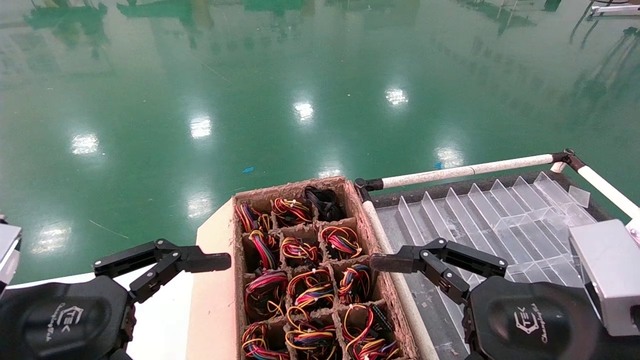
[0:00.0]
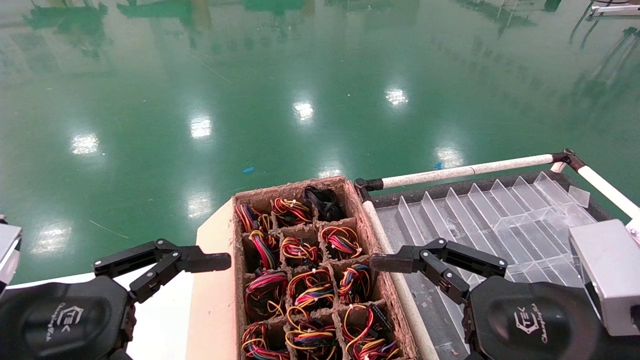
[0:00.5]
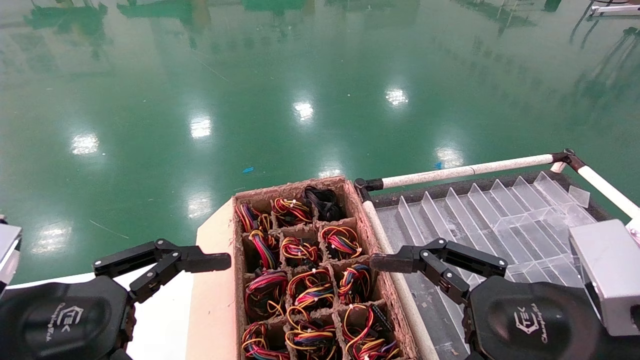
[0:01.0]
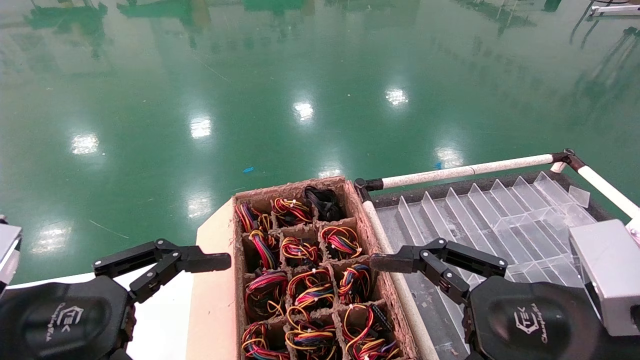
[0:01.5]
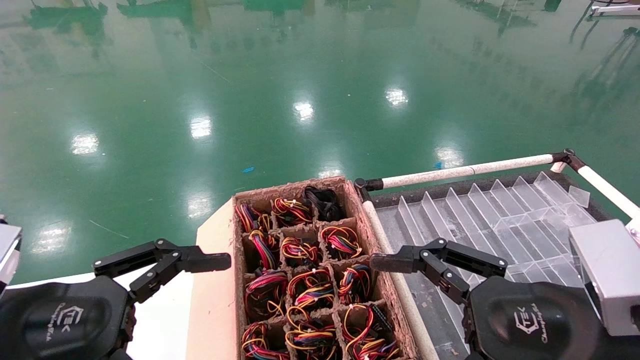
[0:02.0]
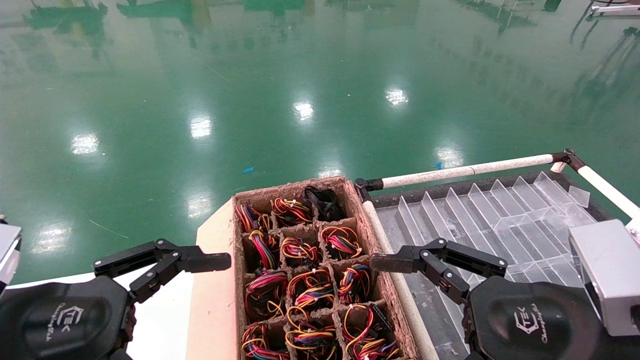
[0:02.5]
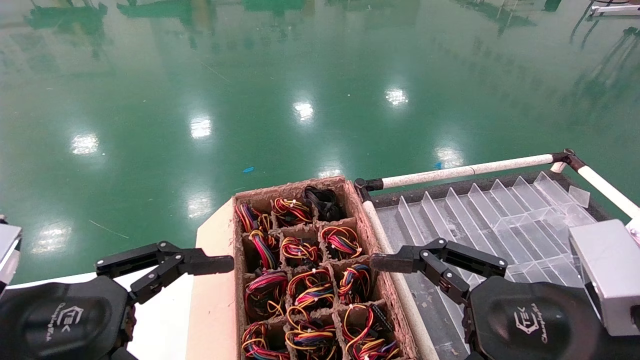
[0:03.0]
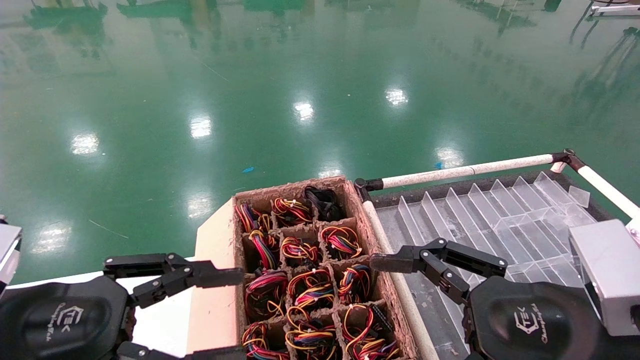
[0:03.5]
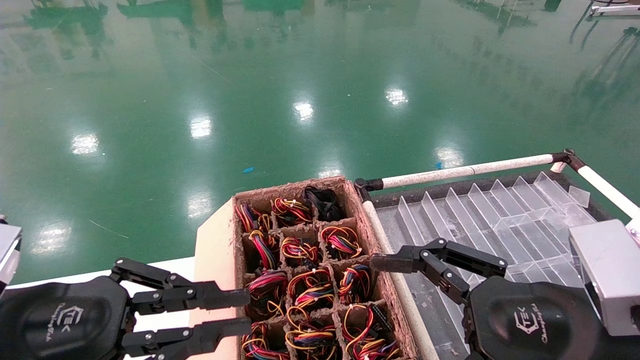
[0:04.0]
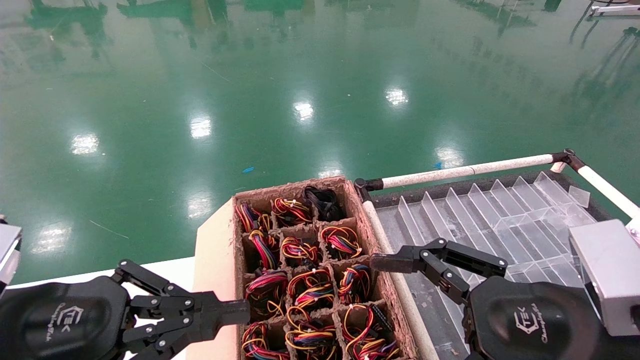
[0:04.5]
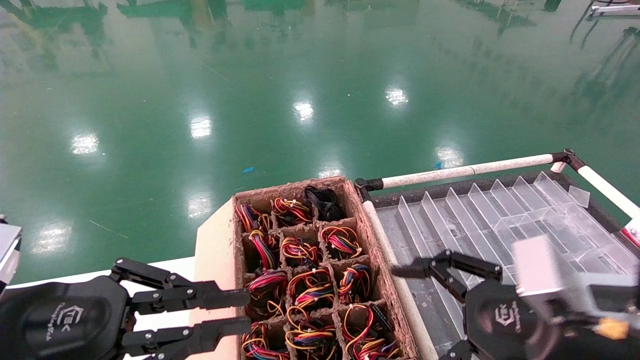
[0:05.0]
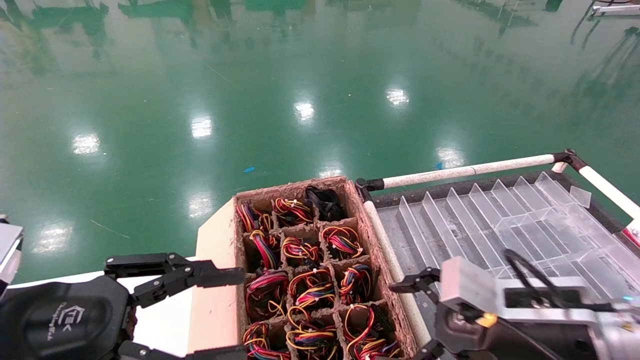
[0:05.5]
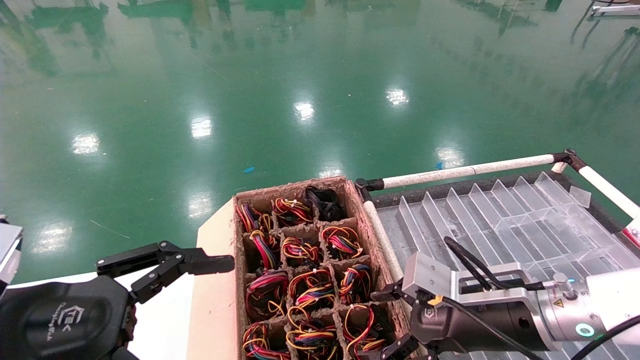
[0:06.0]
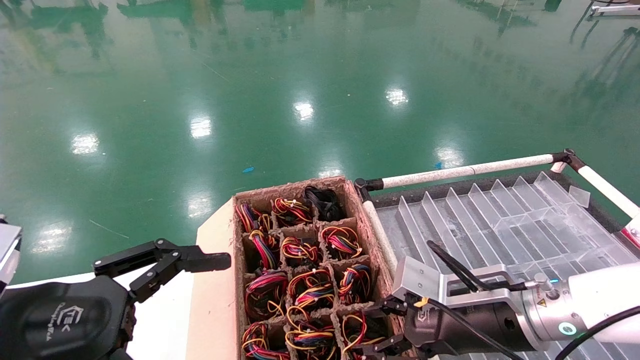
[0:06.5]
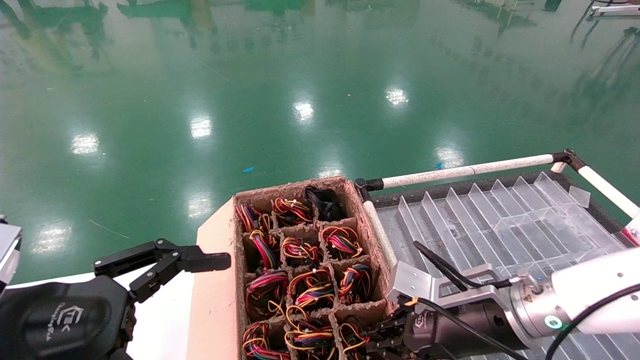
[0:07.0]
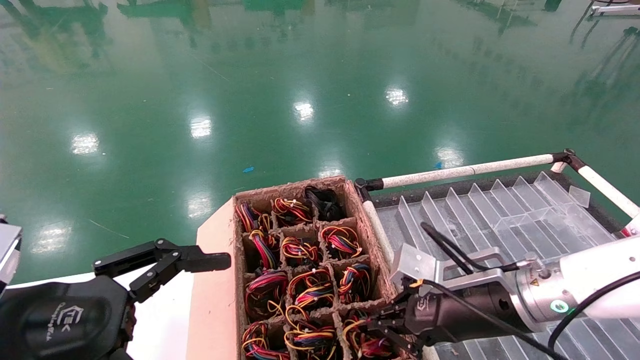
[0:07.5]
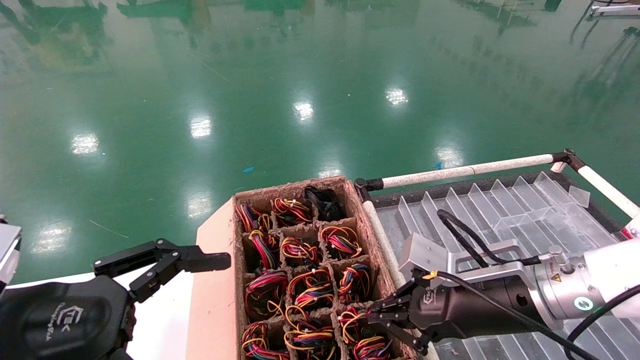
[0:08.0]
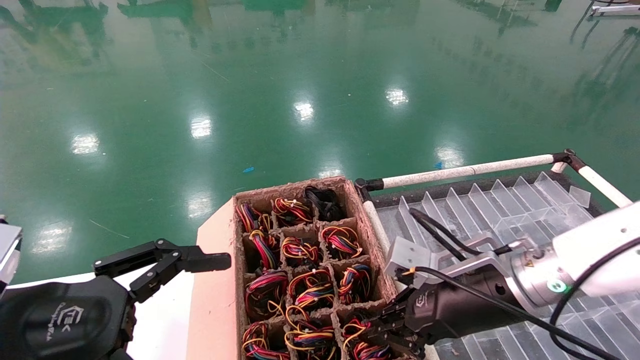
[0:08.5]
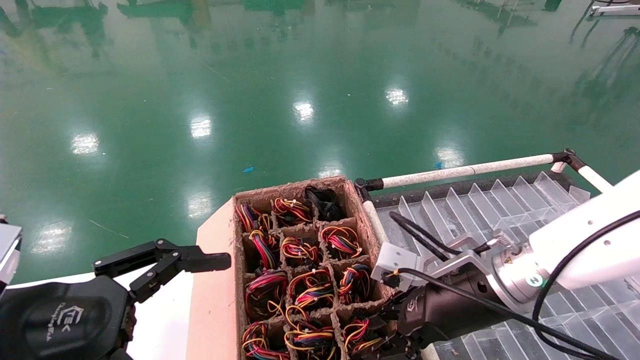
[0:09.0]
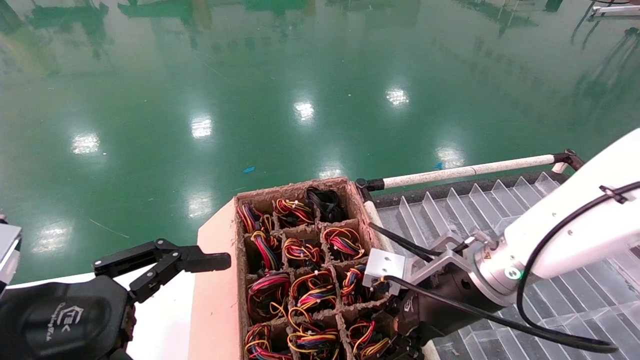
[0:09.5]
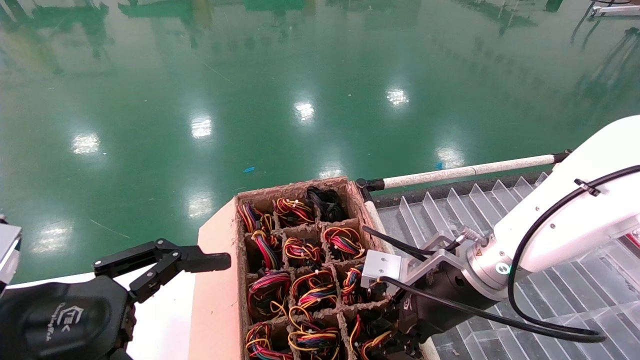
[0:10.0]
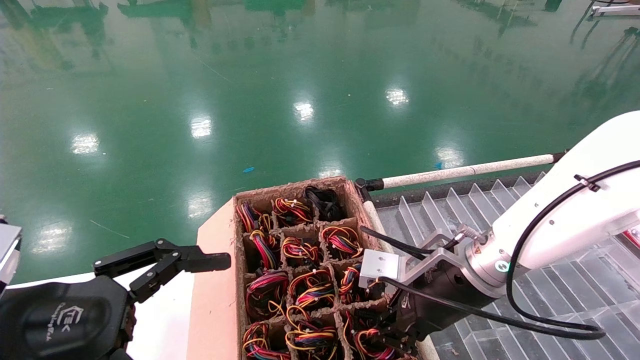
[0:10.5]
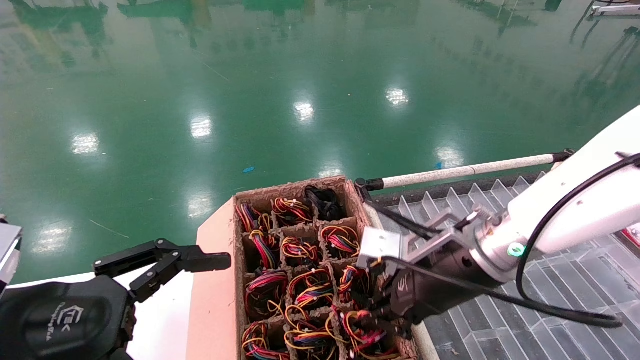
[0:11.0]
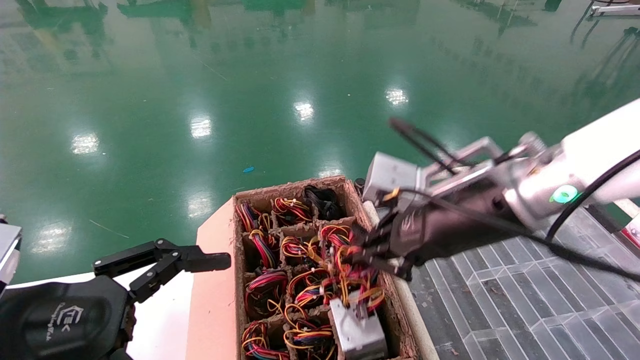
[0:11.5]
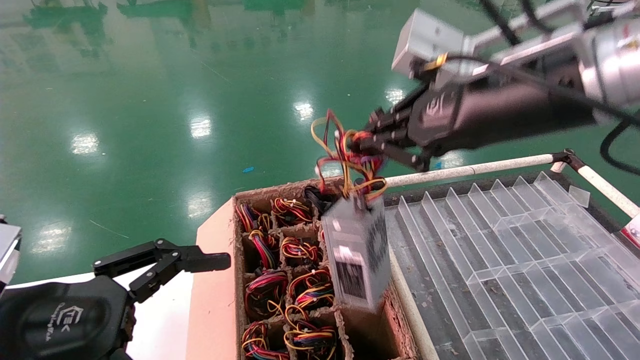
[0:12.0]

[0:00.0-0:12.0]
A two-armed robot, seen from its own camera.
Step, 0:03.5 to 0:10.5: Grab and lift the power supply from the large box.
0:00.0 to 0:02.0: The two grippers keep their place.
0:02.0 to 0:04.0: The left gripper closes.
0:04.0 to 0:06.0: The left gripper opens its fingers. The right gripper goes approximately 15 cm forward and downward.
0:06.0 to 0:08.0: The right gripper closes up.
0:08.0 to 0:10.0: The right gripper moves approximately 5 cm, and opens.
0:10.0 to 0:12.0: The right gripper heads upward, covering roughly 20 cm, and closes its fingers.

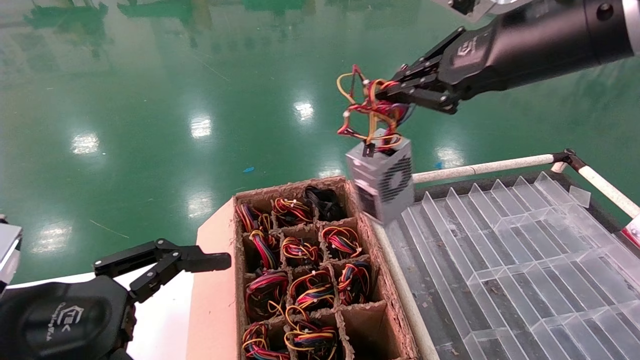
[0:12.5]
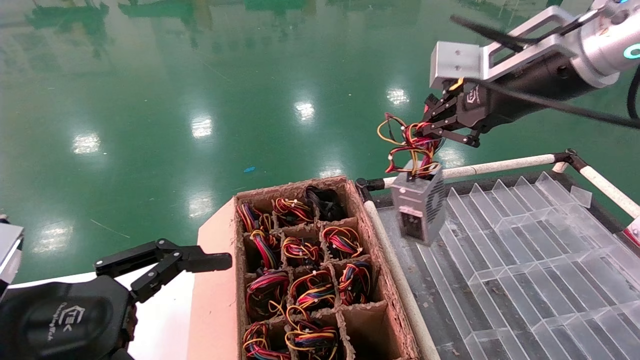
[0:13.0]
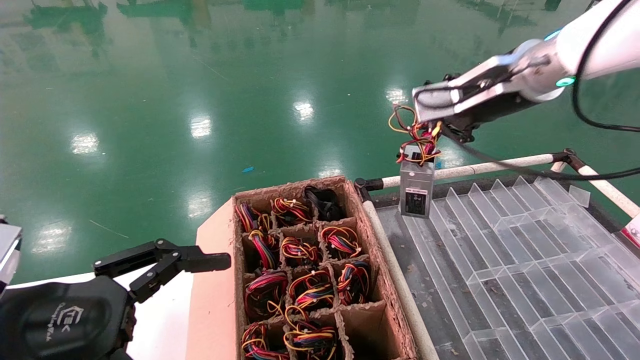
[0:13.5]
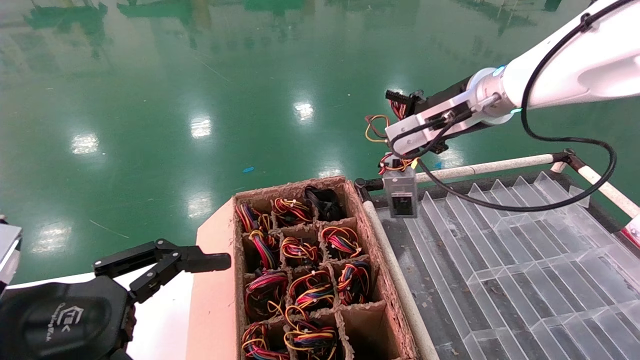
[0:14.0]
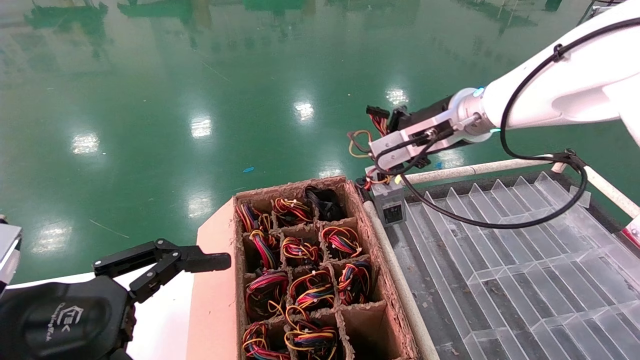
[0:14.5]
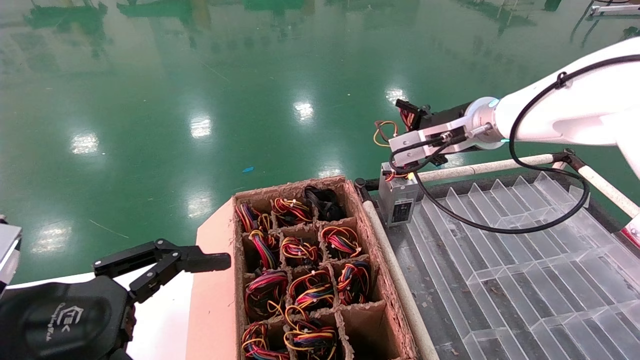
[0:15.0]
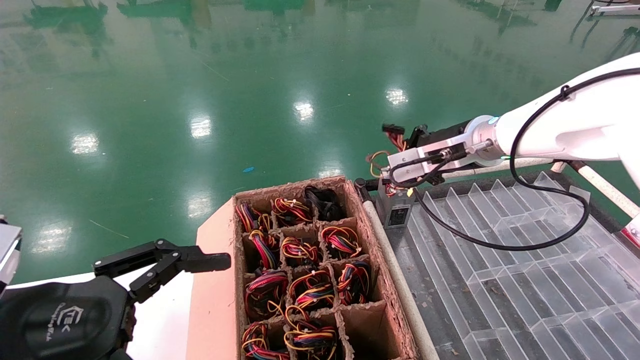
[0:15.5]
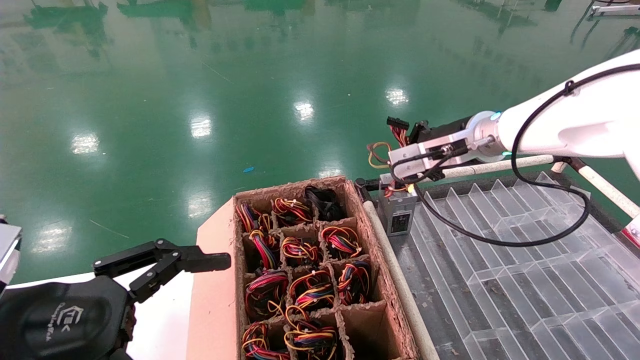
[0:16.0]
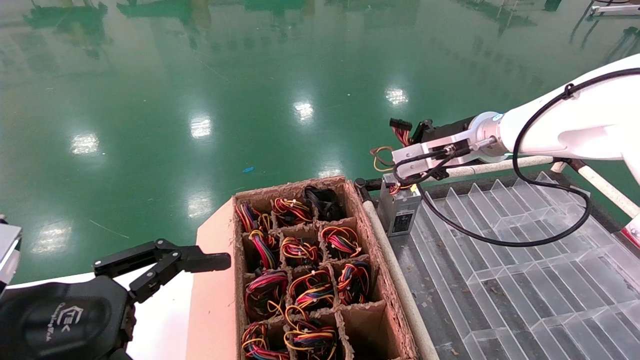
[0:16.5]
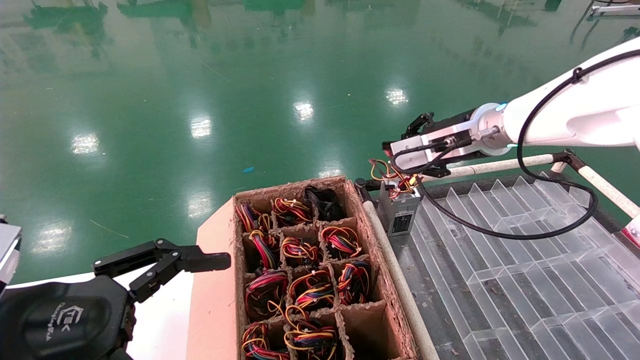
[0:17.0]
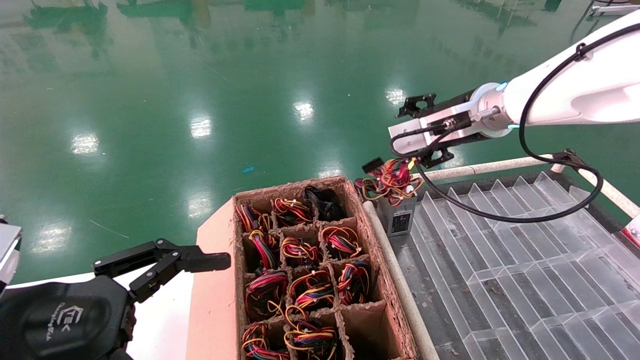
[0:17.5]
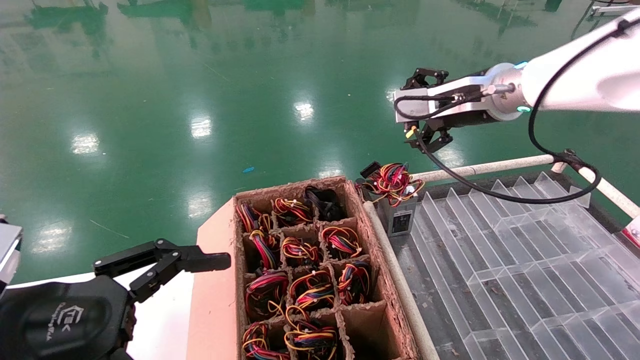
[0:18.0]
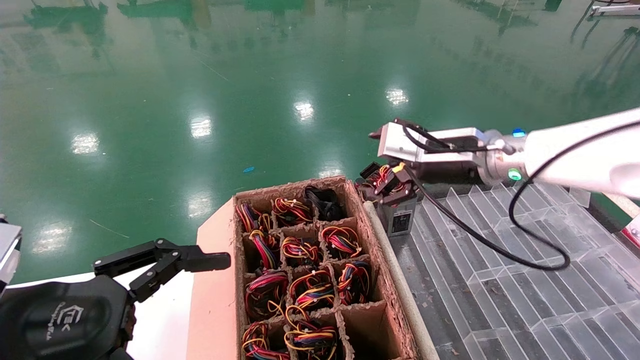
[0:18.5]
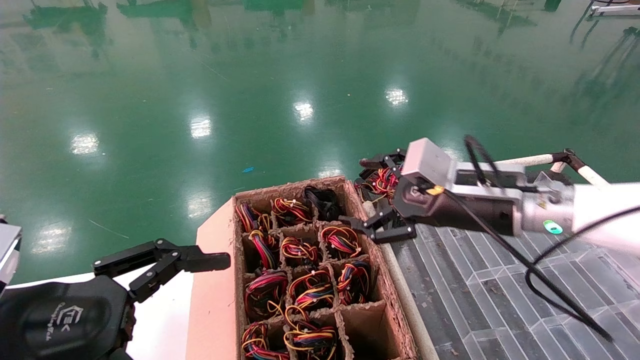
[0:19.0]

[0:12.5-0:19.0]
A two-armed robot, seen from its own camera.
Step, 0:12.5 to 0:16.5: Place the power supply on the operating table.
0:12.5 to 0:14.5: The right gripper moves forward and downward, roughly 20 cm.
0:14.5 to 0:17.0: The grippers move only a little.
0:17.0 to 0:19.0: The right gripper travels backward and downward by some 15 cm, and opens its fingers.
